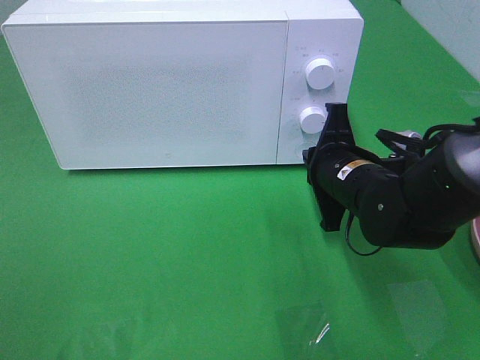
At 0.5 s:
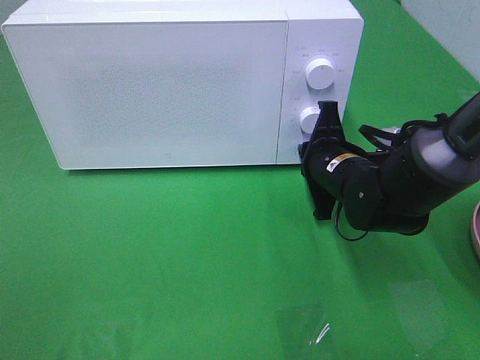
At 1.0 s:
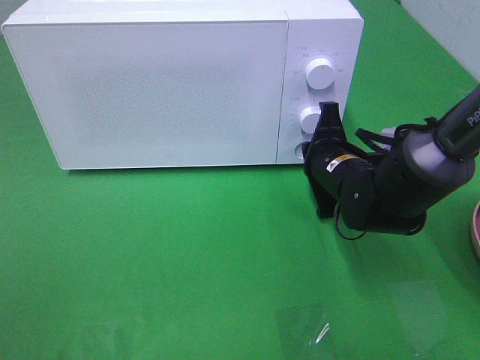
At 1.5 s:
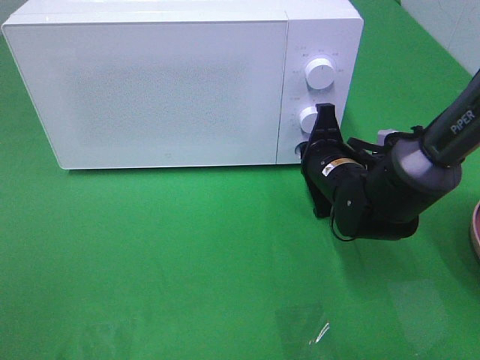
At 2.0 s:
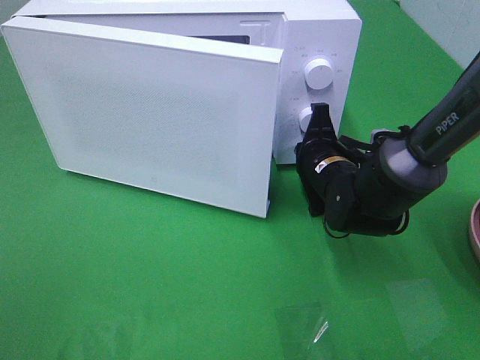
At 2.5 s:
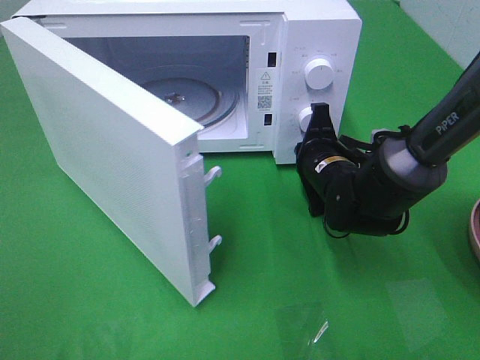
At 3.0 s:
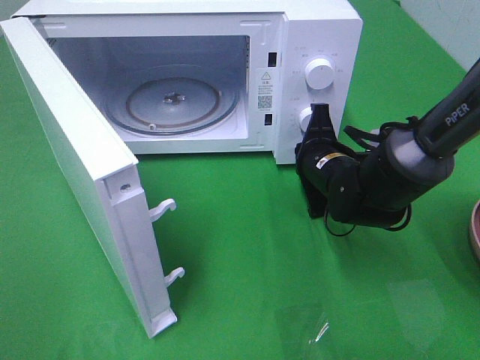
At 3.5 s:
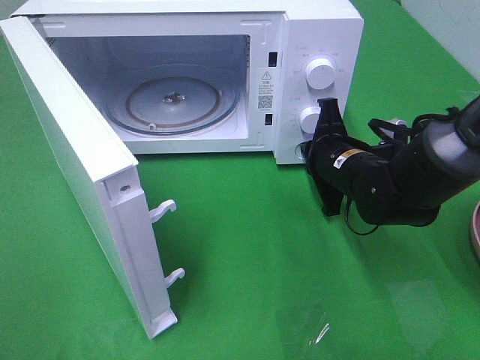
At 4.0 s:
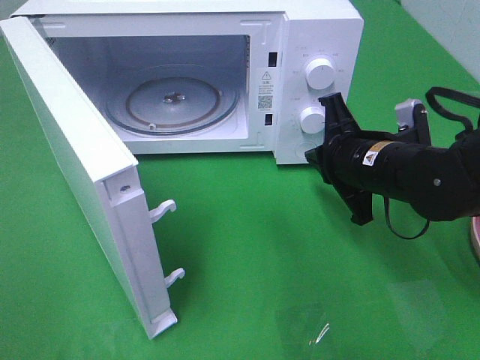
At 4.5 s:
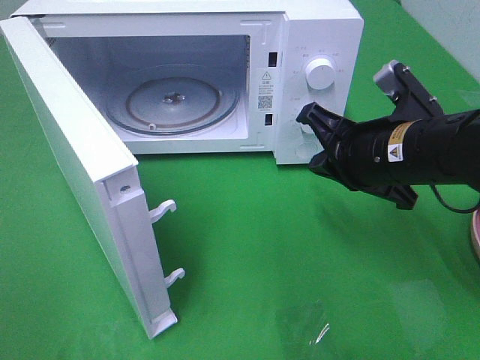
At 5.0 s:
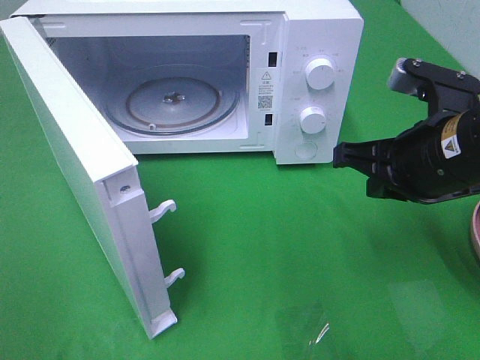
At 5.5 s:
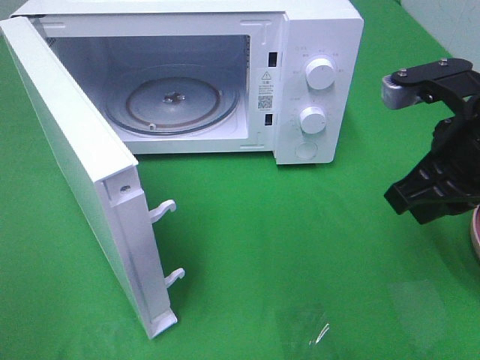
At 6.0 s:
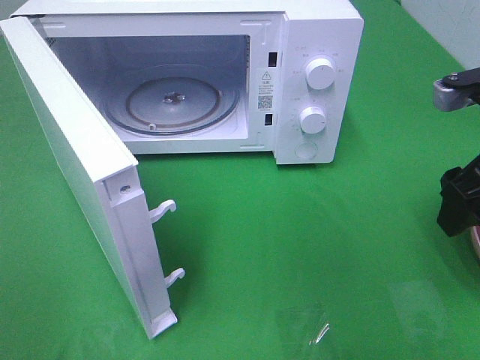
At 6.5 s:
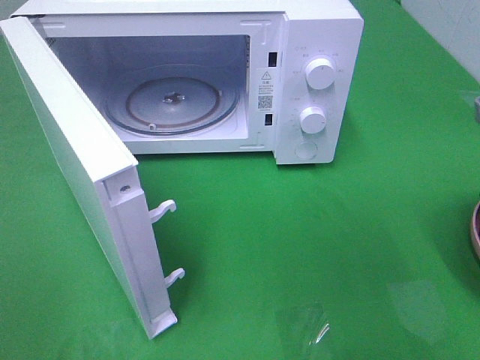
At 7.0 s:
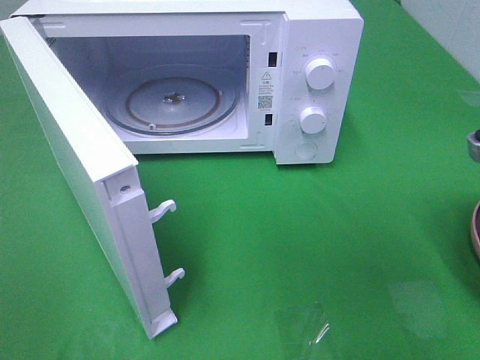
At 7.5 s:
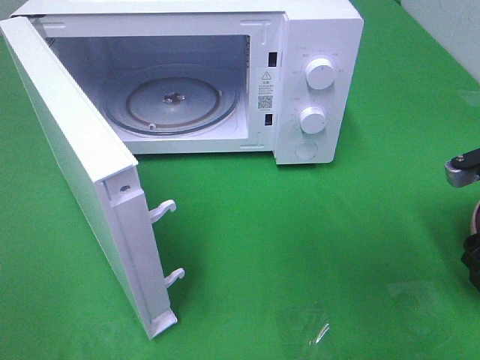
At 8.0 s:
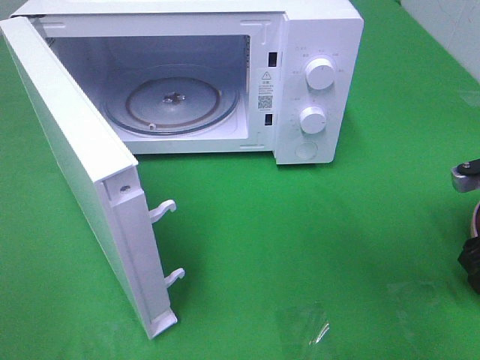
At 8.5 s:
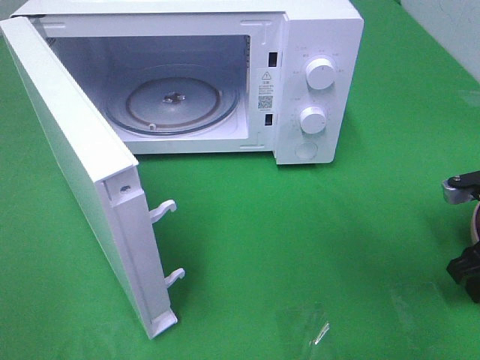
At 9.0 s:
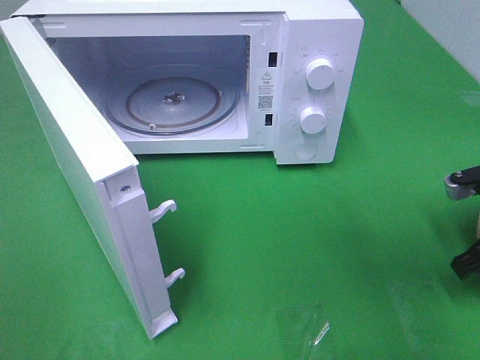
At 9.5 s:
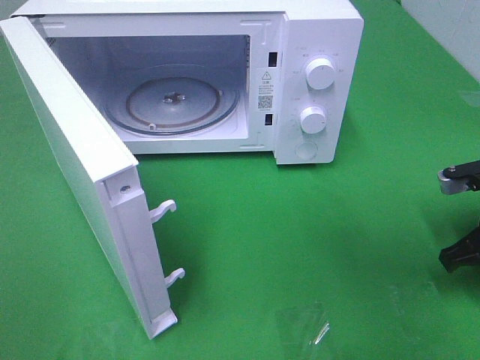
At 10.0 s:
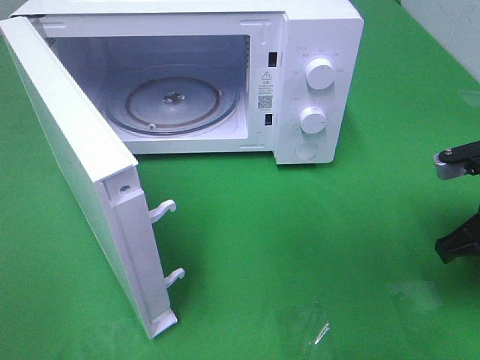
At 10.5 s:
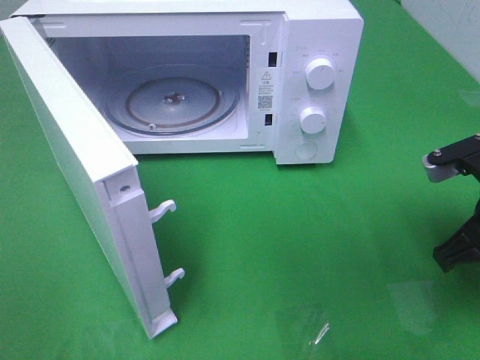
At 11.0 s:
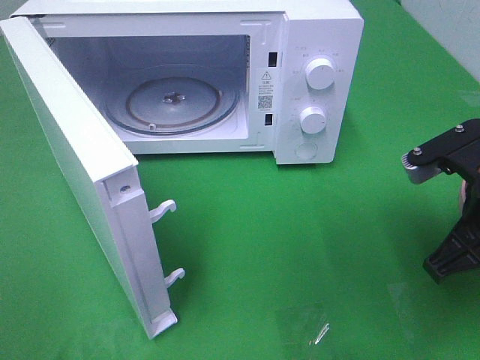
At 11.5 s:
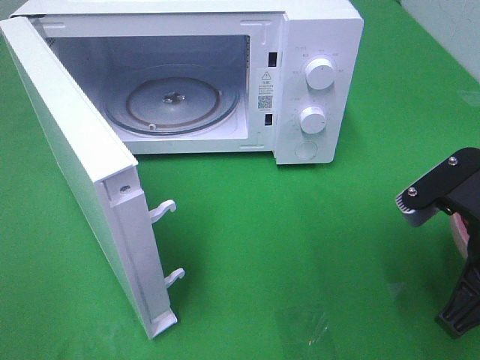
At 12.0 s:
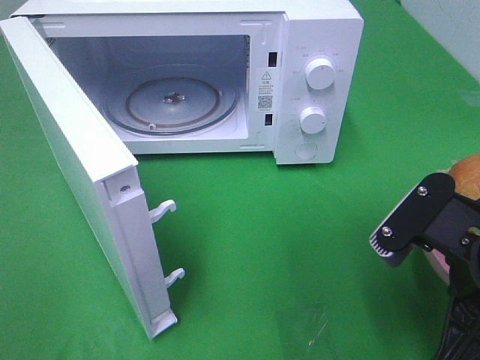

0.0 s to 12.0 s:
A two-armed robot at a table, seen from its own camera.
Task of the whole recording: Heat the burger.
Step, 0.0 to 3.5 s: Right hand: press the switch.
Step, 4.0 to 9.0 s: Right hand: grab the plate with the hamburger.
0.0 to 2.0 s: The right gripper shifts about 5 cm forward.
2.0 to 4.0 s: The right gripper travels upward and backward by roughly 10 cm.
4.0 to 6.0 s: The right gripper heads to the right, upward and backward, covering about 15 cm, and opens its fingers.
6.0 to 8.0 s: The right gripper moves downward and to the right, about 10 cm.
8.0 to 10.0 s: The right gripper closes its fingers.
10.0 to 12.0 s: The right gripper goes some 15 cm backward and to the left.

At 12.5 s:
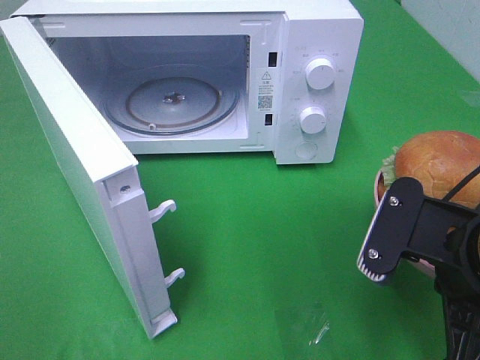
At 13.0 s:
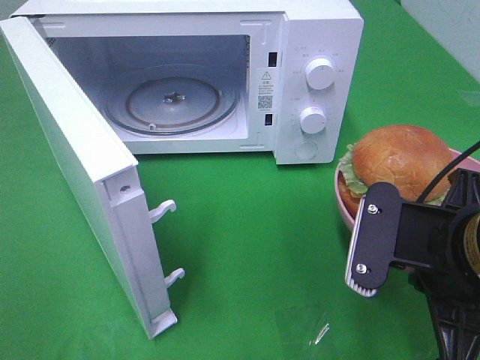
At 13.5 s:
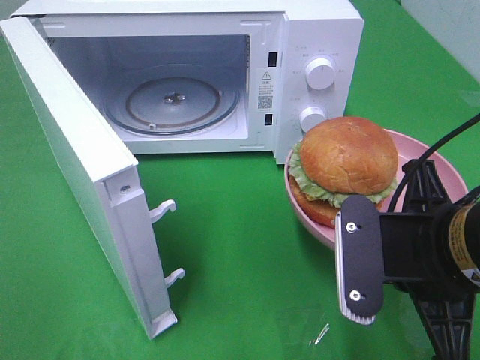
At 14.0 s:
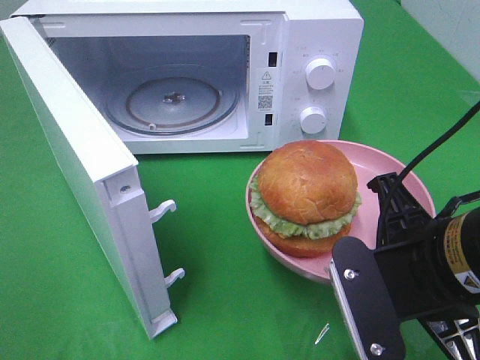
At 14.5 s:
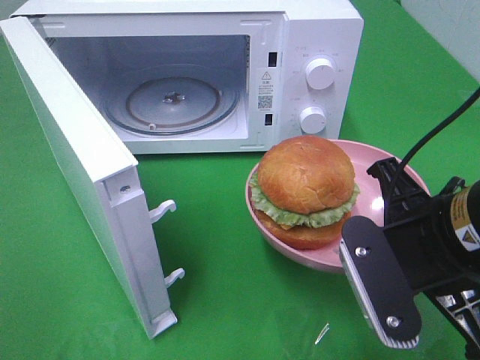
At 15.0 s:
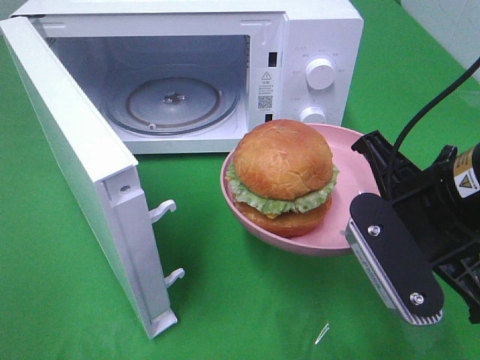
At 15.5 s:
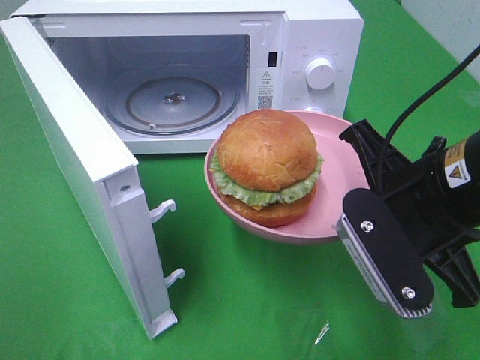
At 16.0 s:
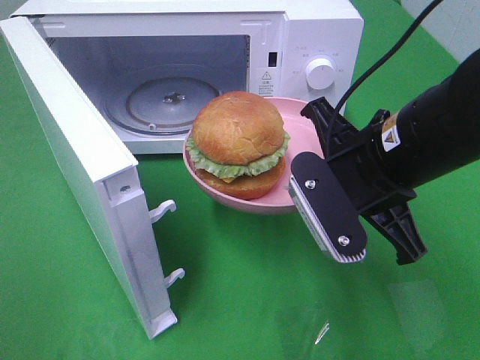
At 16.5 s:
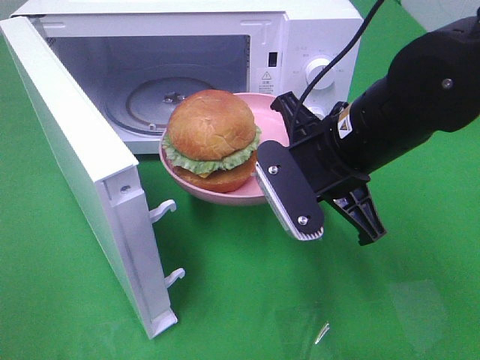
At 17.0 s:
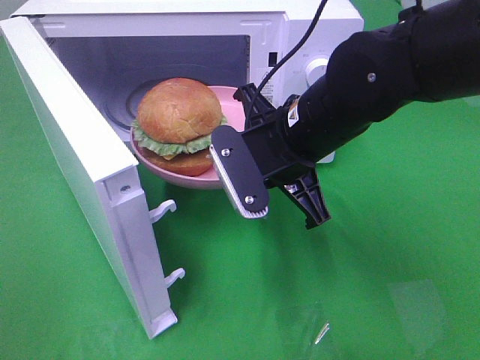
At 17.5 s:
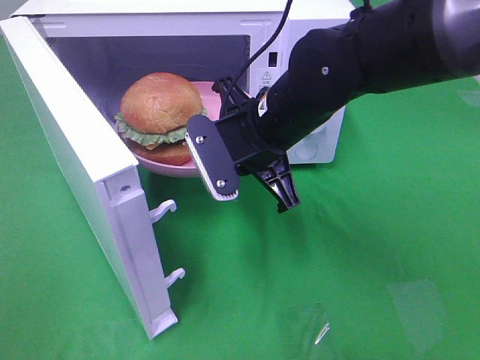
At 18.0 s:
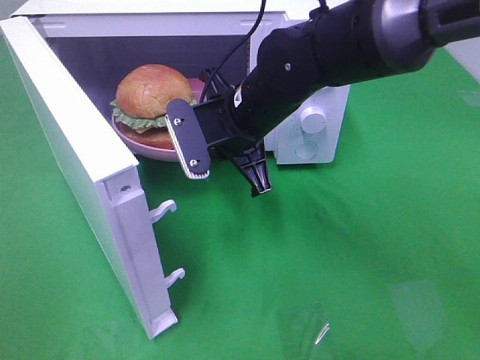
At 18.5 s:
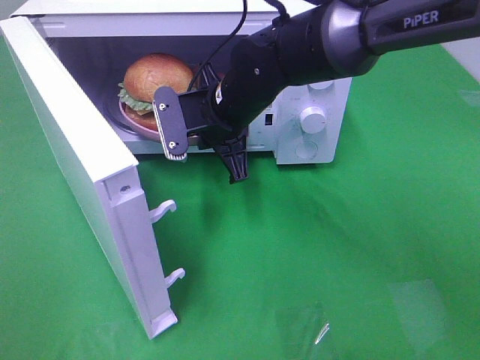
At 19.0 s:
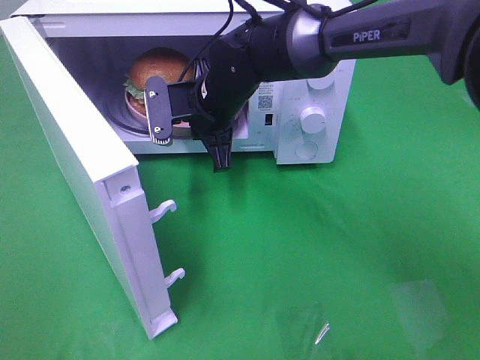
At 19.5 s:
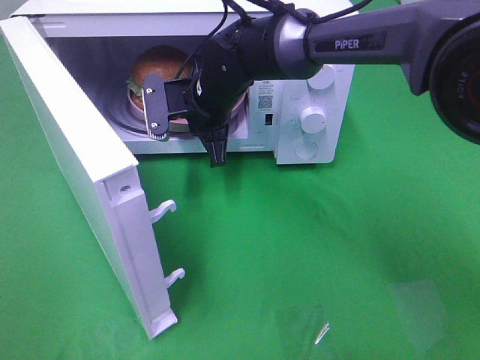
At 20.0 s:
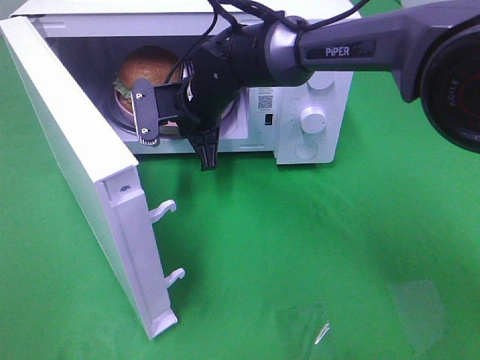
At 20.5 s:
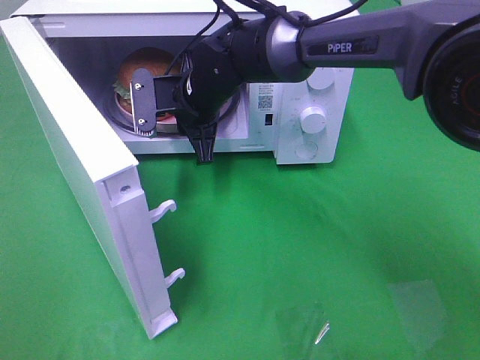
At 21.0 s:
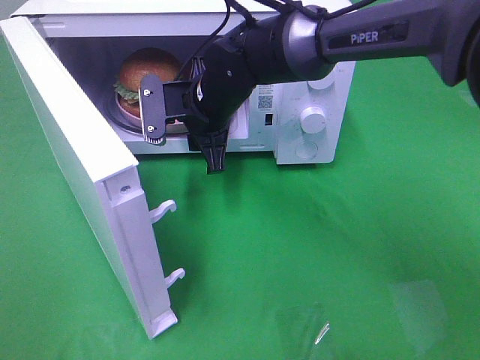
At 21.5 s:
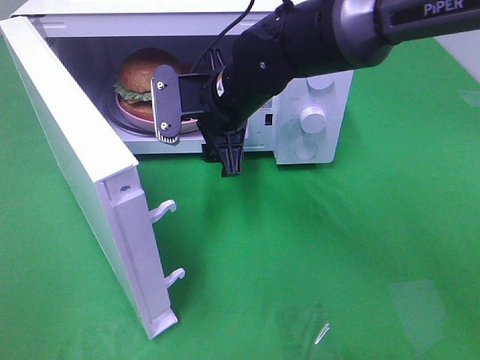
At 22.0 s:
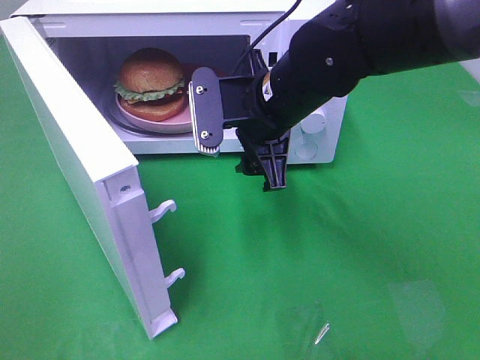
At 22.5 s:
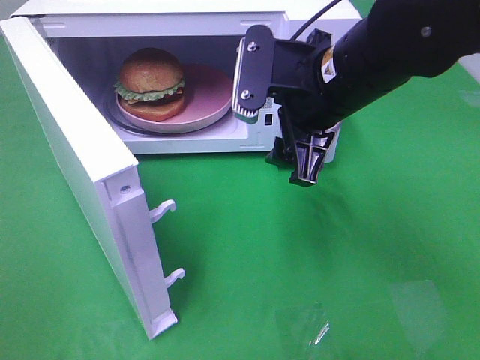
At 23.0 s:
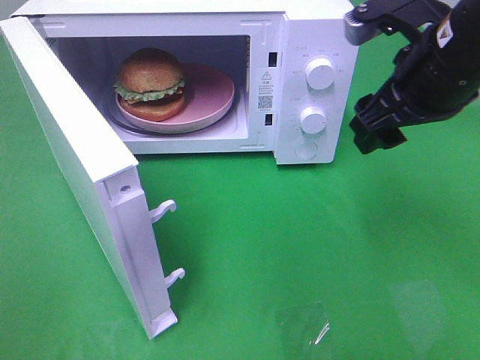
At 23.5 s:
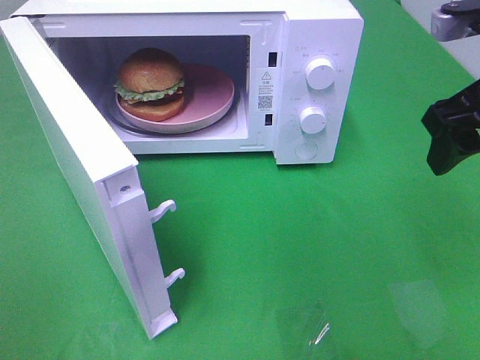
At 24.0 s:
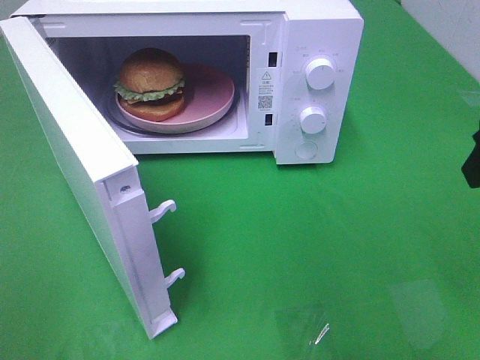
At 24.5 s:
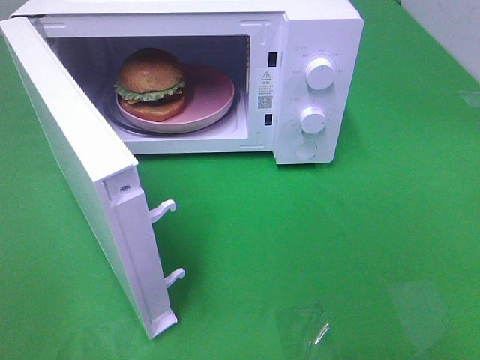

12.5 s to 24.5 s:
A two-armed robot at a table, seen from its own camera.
Task of the whole recording: Heat the burger.
Step, 12.5 to 20.0 s: Right hand: place the plate in the microwave.
14.5 to 16.5 s: The right gripper travels forward and to the left by about 10 cm.
16.5 to 18.5 s: The right gripper goes roughly 15 cm forward and to the left.
18.5 to 20.5 s: The right gripper moves roughly 5 cm.
20.5 to 22.5 s: The right gripper heads to the right, backward and upward, covering some 20 cm, and opens its fingers.
22.5 to 24.5 s: The right gripper goes some 30 cm backward, to the right and upward.

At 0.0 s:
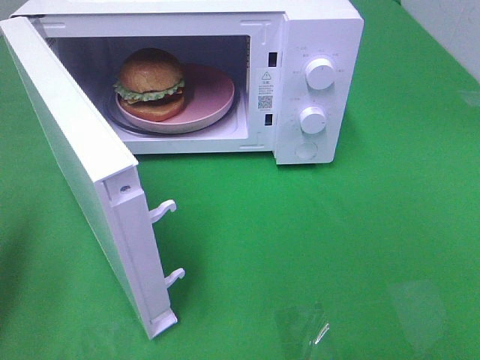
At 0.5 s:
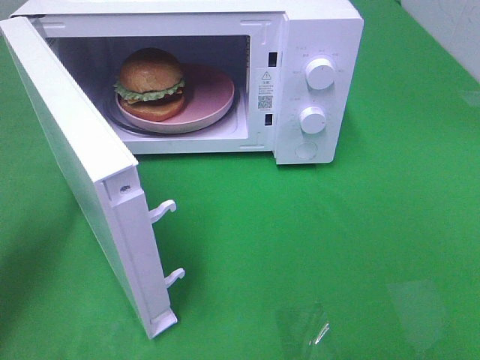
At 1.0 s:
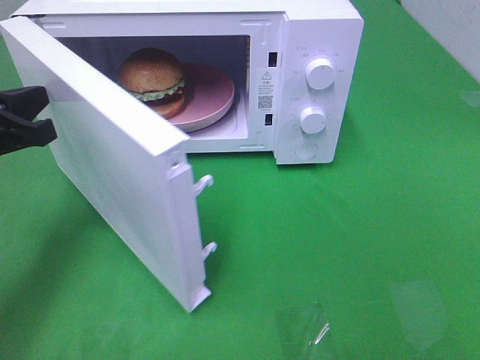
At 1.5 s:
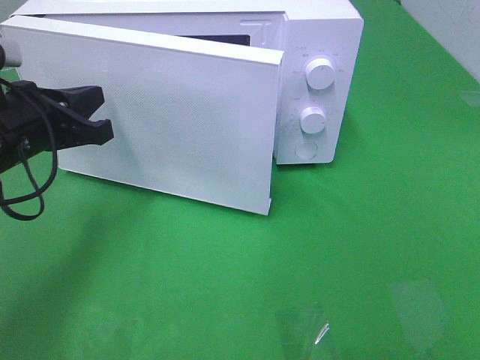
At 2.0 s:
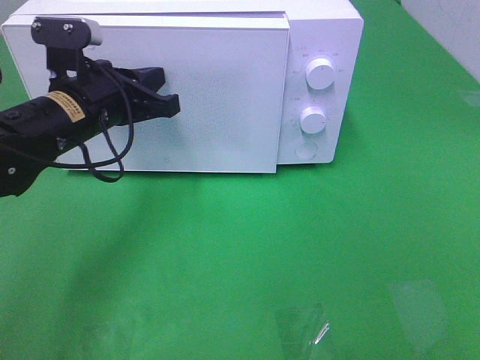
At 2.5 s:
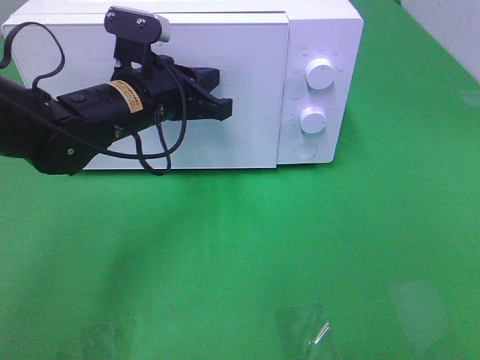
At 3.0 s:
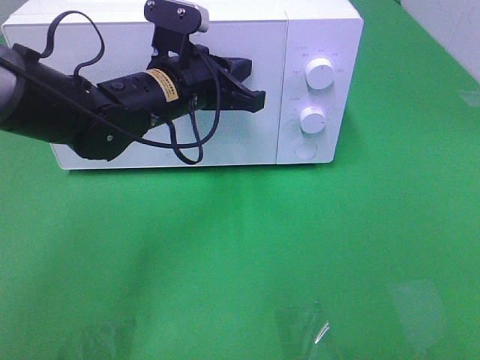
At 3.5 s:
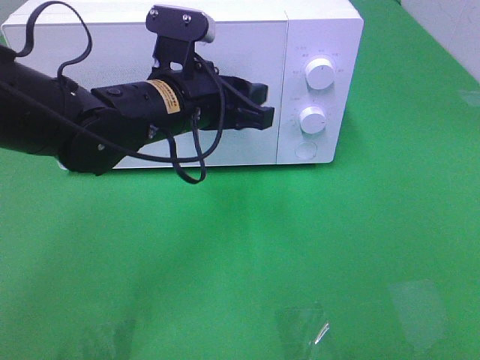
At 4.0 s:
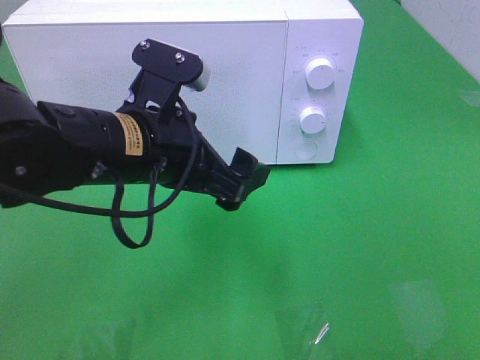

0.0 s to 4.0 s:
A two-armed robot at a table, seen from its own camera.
Task of the whole recording: Heat the burger.
Step, 0.0 to 3.0 s: Left hand: close the microwave door.
0.0 to 2.0 s: The left gripper goes roughly 20 cm to the right and forward.
2.0 to 4.0 s: The left gripper shifts approximately 10 cm backward and to the right, and opens.
